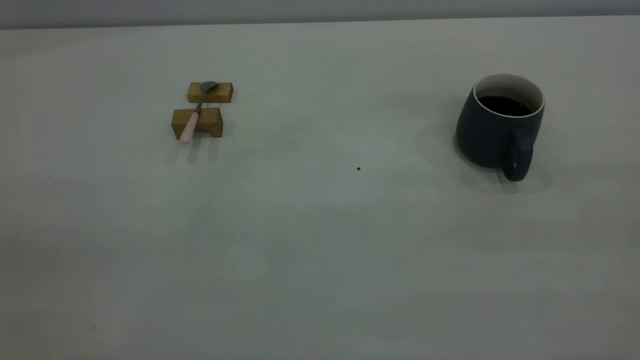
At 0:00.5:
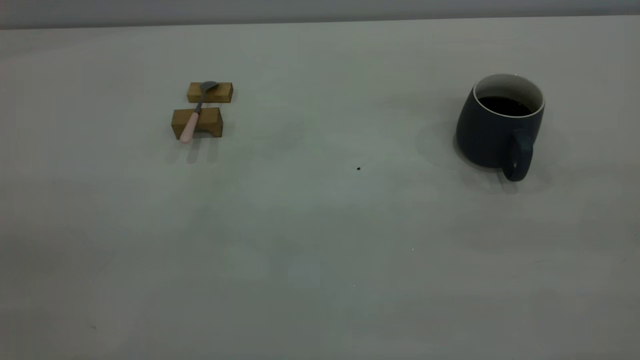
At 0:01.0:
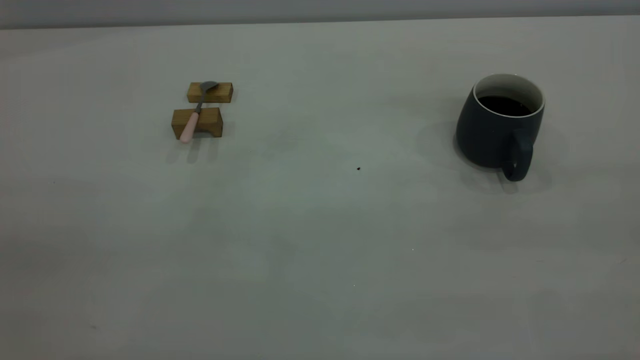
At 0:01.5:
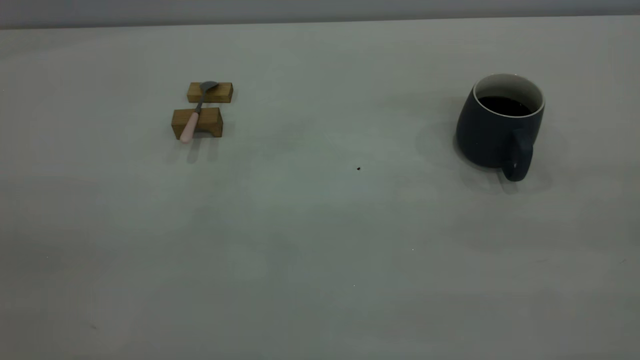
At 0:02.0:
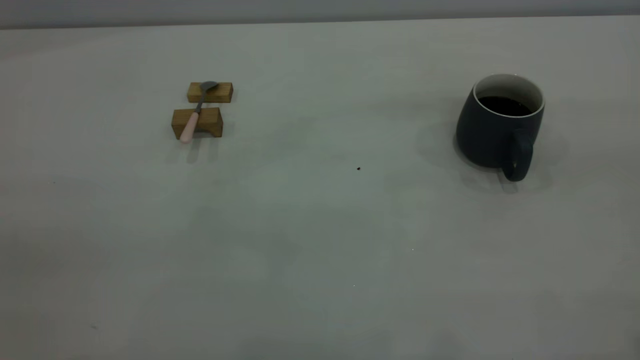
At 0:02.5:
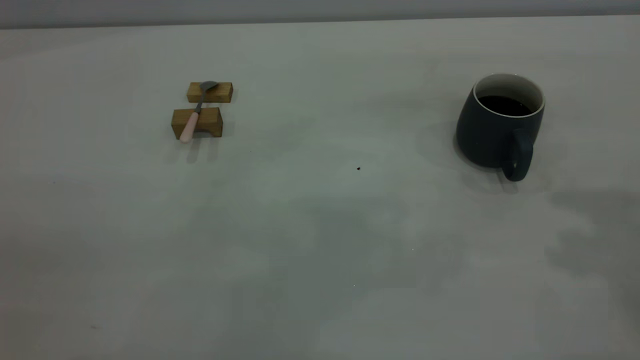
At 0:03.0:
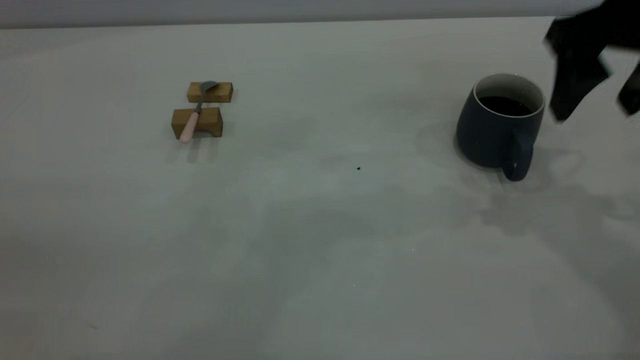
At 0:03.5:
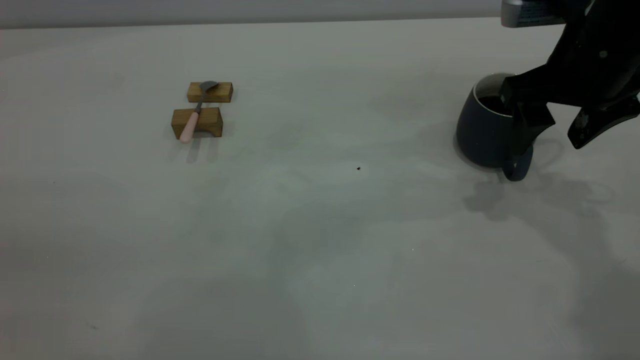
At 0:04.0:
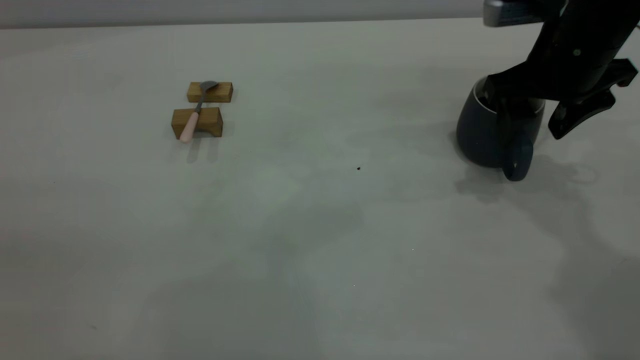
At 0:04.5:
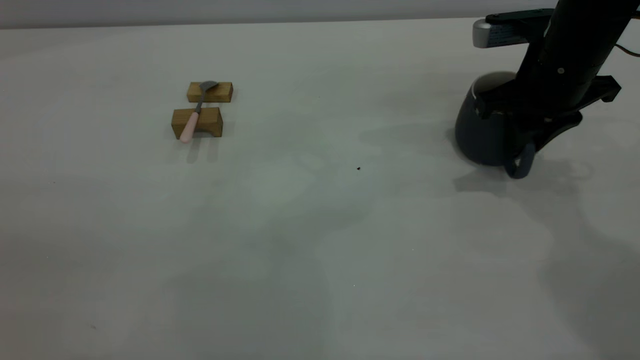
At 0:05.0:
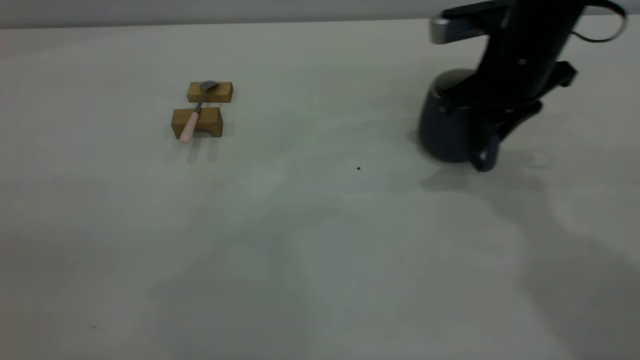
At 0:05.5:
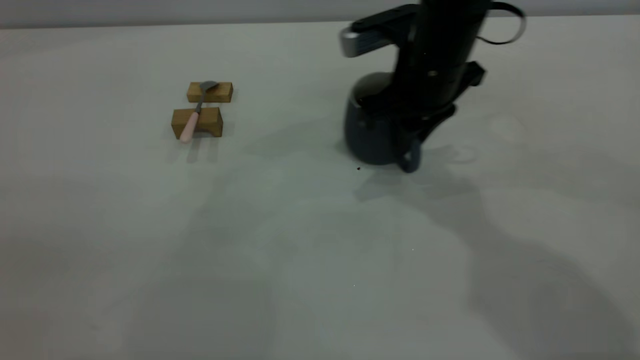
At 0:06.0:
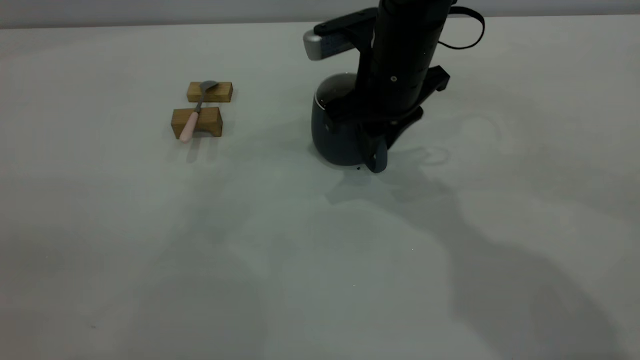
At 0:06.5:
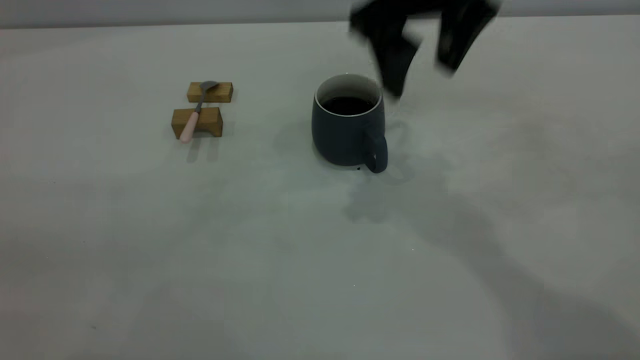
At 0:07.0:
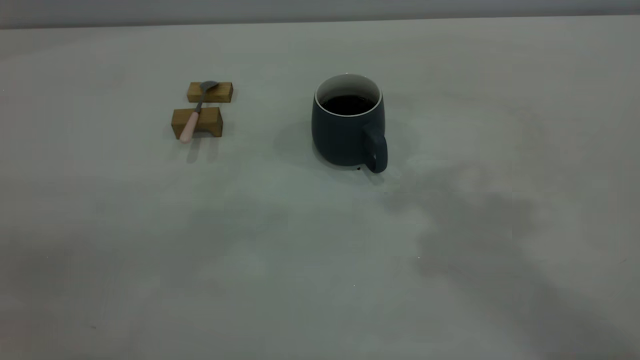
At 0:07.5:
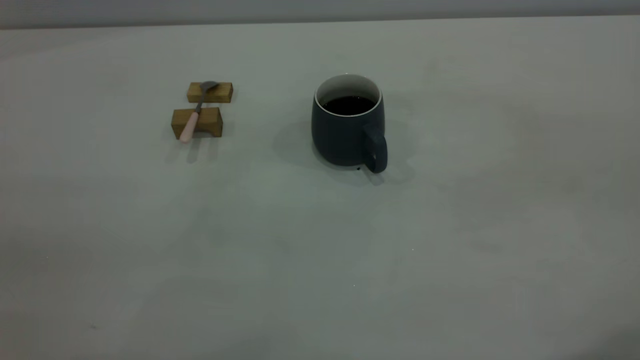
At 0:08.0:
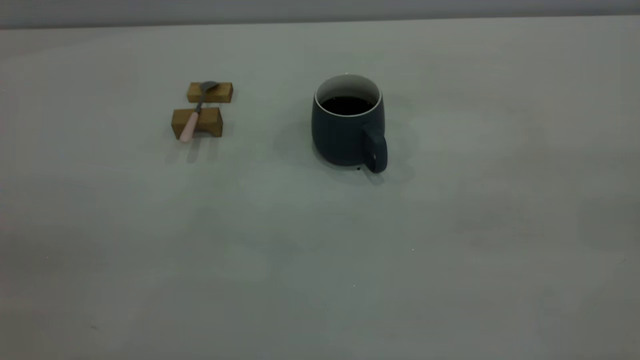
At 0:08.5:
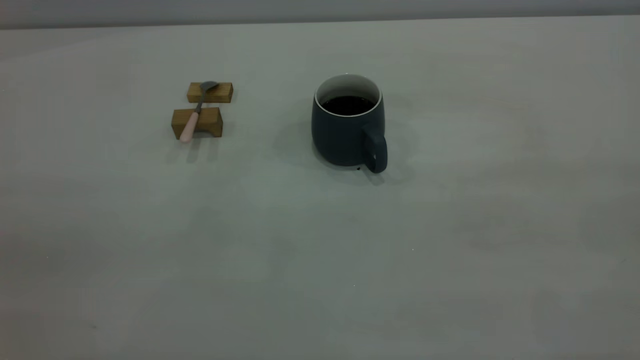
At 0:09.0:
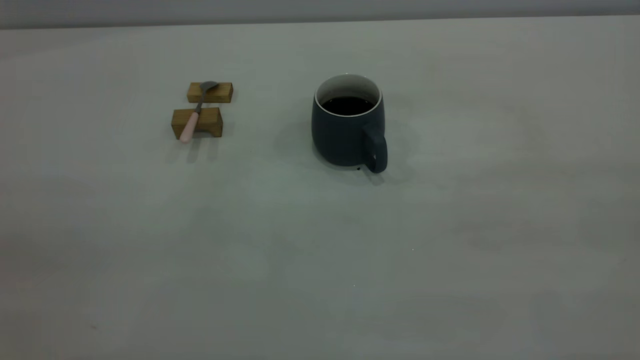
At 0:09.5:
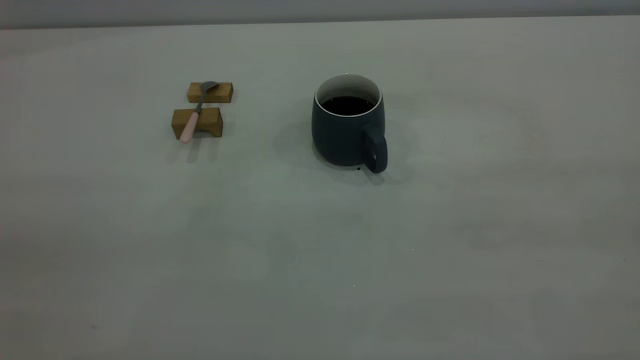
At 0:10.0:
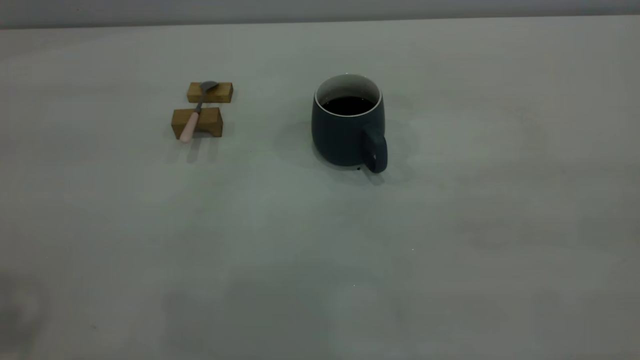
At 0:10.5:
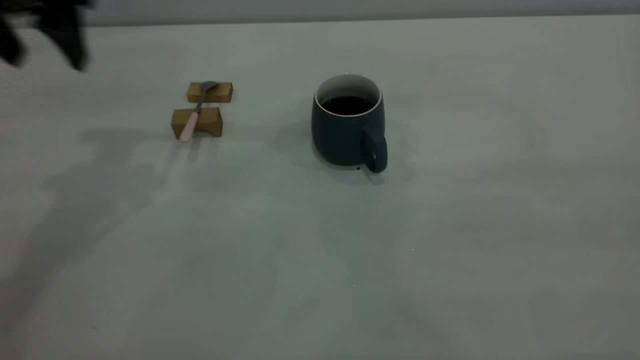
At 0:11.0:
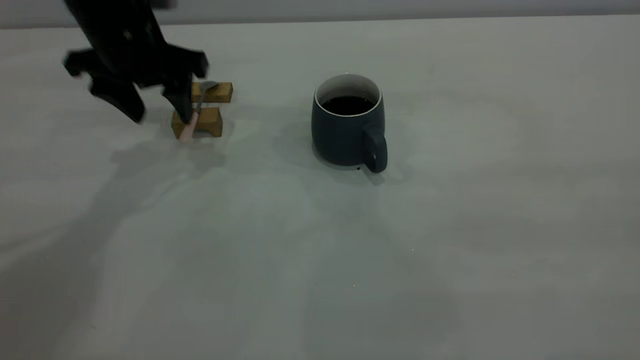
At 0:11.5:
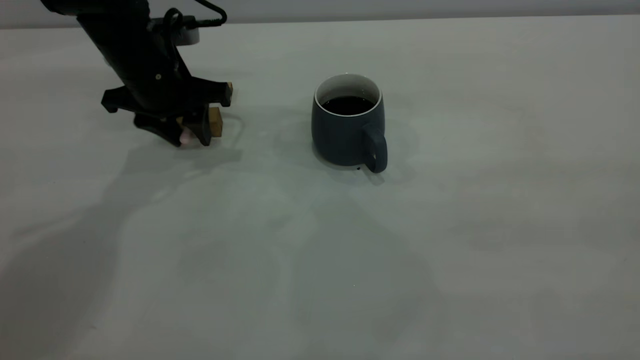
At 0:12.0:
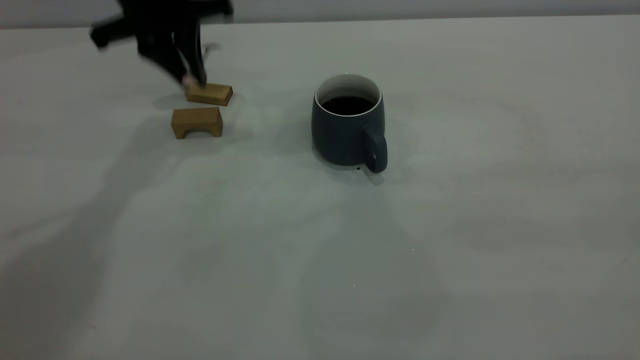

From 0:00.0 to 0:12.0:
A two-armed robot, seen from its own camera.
Step, from 0:00.0 to 0:06.0: Move the cup with coffee to the center of view.
Step, from 0:06.5 to 0:11.5: Pick up the spoon.
From 0:02.0 to 0:04.0: The right gripper goes about 35 cm forward and downward.
From 0:04.0 to 0:06.0: The right gripper travels to the left by some 15 cm, and closes.
From 0:06.0 to 0:08.0: The right gripper shifts about 50 cm backward, to the right and upward, and opens up.
From 0:10.0 to 0:12.0: The left gripper travels forward, downward and to the right by about 35 cm, and closes up.

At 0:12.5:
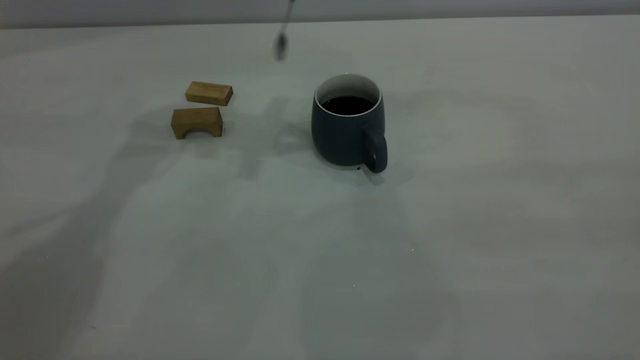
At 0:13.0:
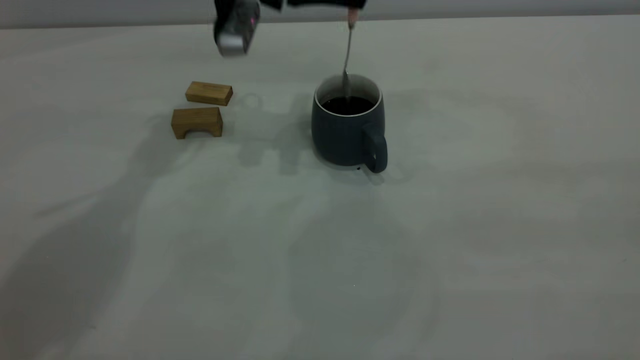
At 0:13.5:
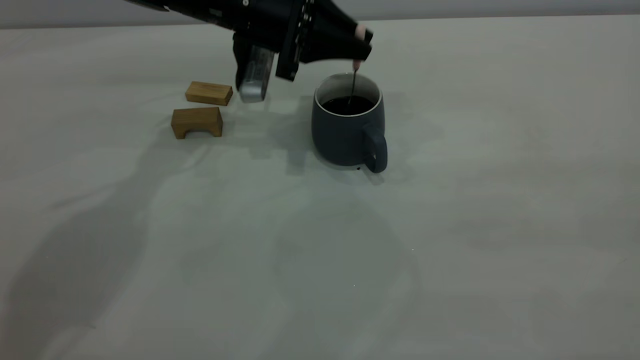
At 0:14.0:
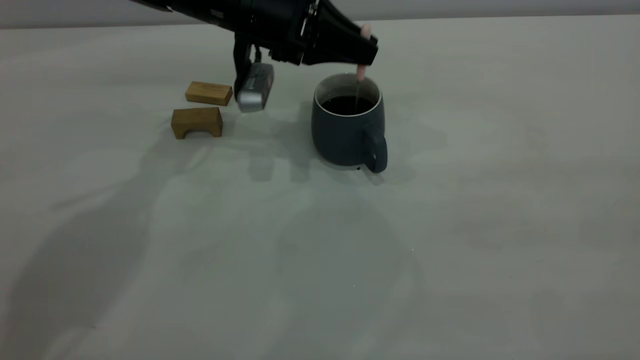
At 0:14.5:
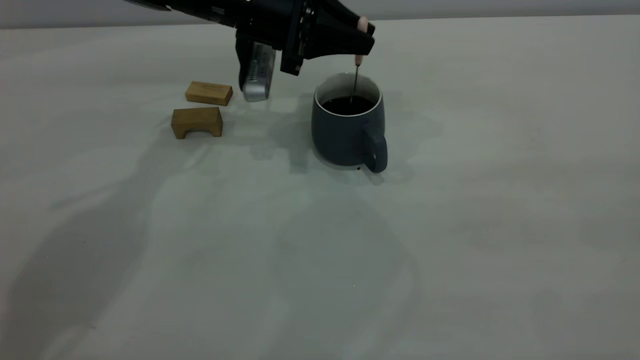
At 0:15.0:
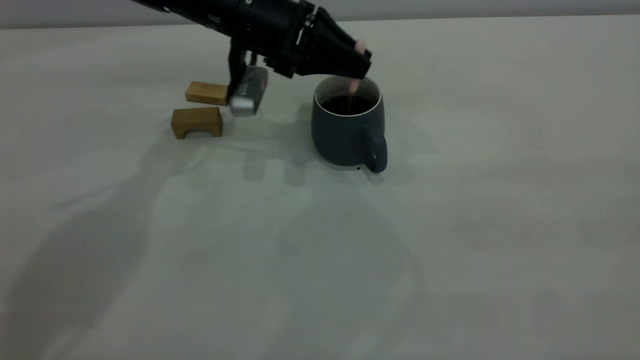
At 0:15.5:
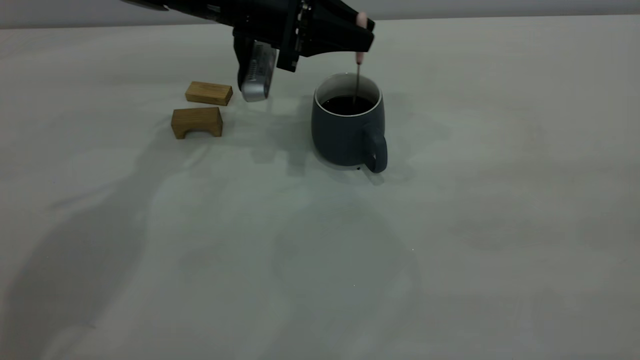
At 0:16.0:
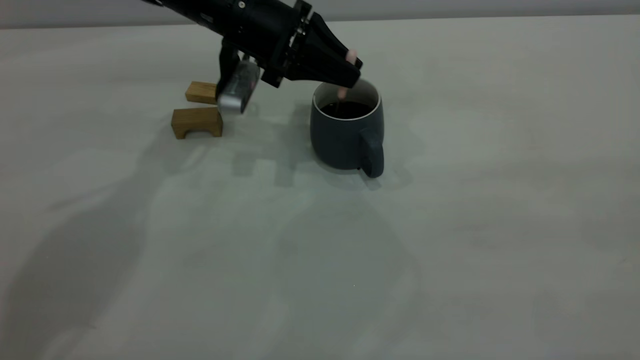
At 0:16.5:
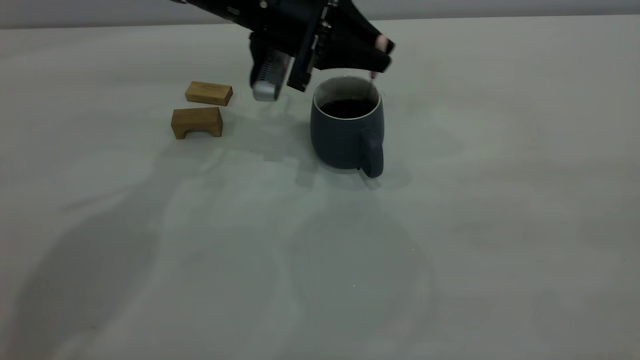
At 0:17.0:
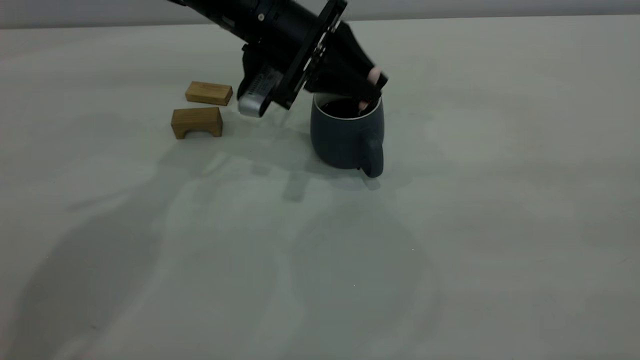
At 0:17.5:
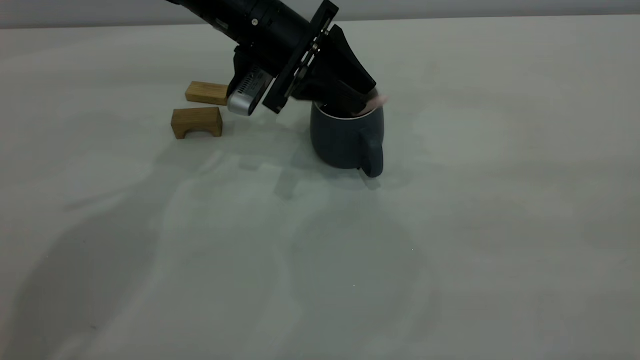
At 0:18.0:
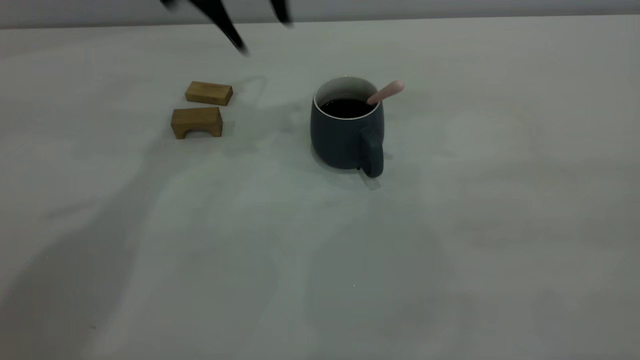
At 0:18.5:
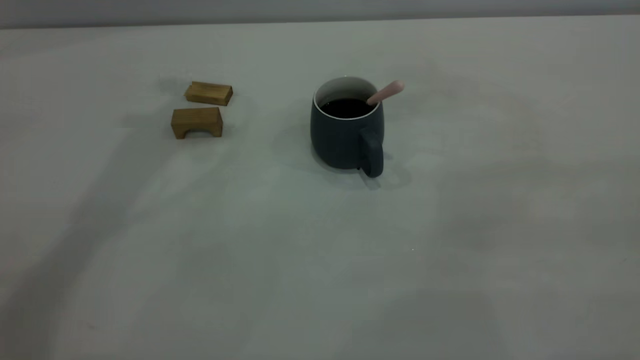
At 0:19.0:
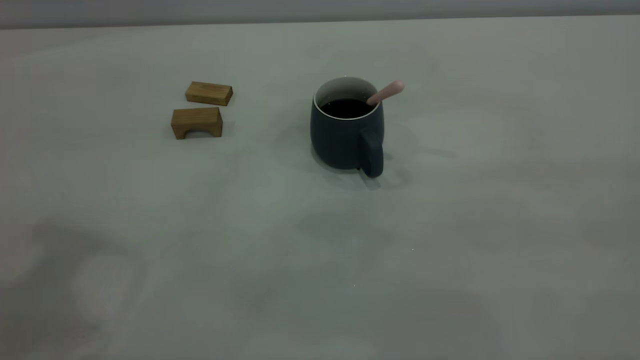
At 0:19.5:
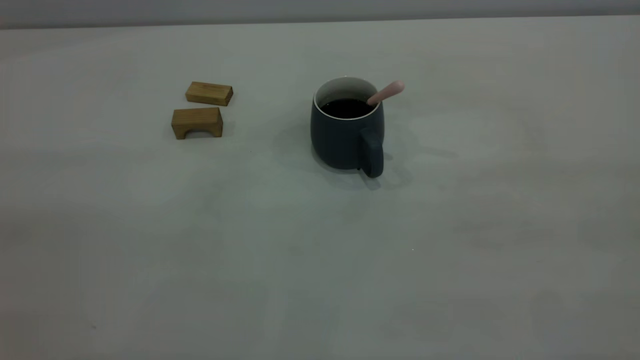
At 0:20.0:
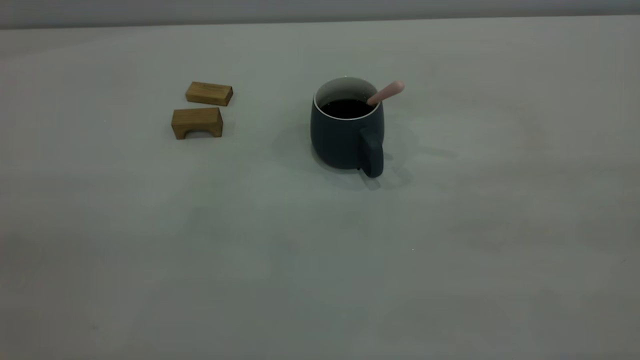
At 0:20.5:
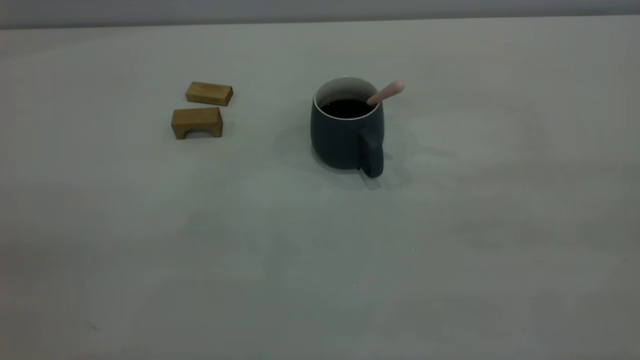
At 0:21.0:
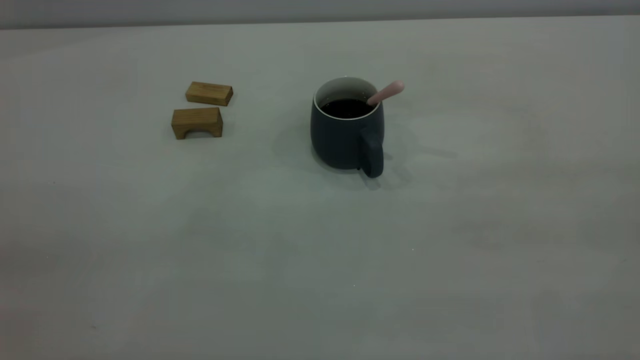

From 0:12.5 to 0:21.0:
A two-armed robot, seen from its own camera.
Step, from 0:12.5 to 0:17.5: Stir the coffee in the cup.
From 0:12.5 to 0:14.5: The left gripper heads downward, covering some 15 cm.
From 0:14.5 to 0:16.5: There are only small adjustments of the grippers.
From 0:16.5 to 0:19.0: The left gripper moves backward, upward and to the left, some 40 cm, and opens and closes again.
